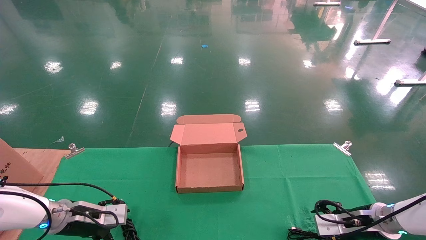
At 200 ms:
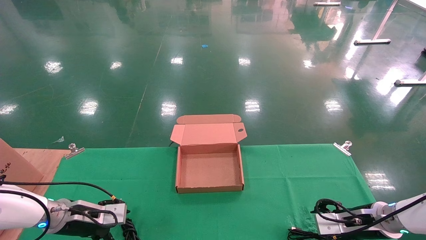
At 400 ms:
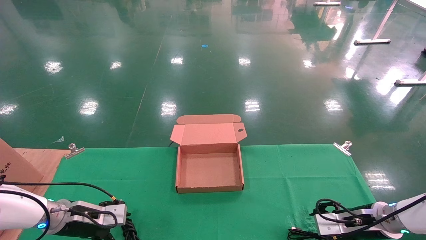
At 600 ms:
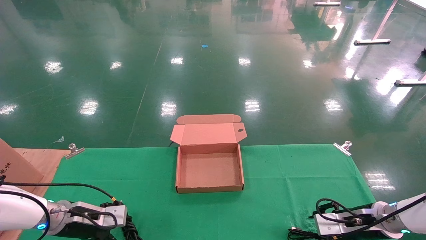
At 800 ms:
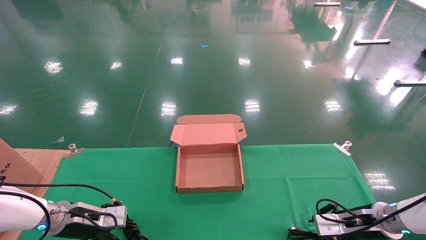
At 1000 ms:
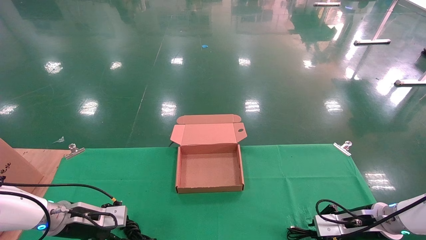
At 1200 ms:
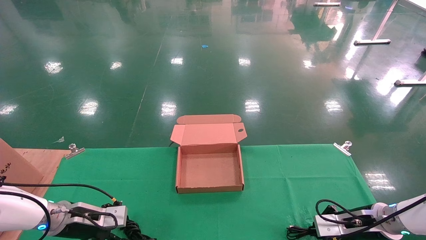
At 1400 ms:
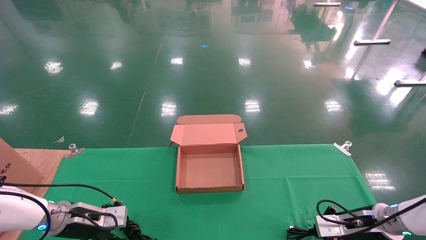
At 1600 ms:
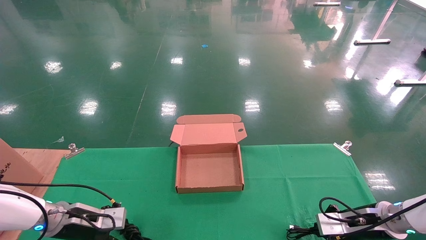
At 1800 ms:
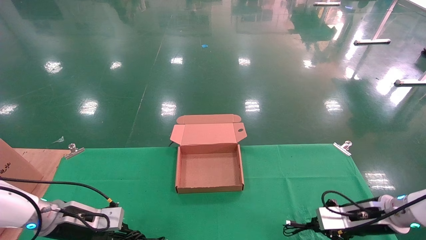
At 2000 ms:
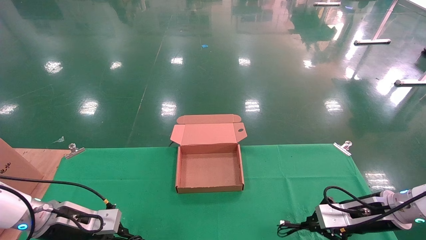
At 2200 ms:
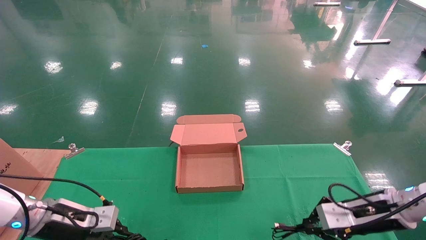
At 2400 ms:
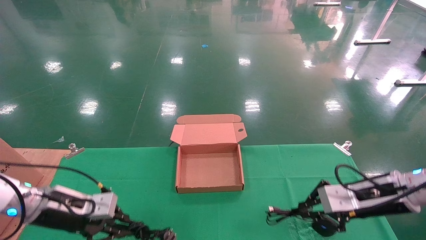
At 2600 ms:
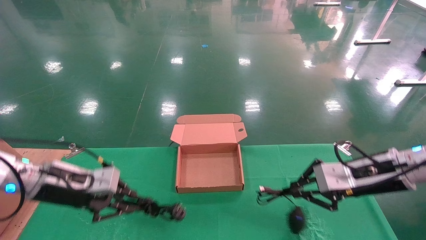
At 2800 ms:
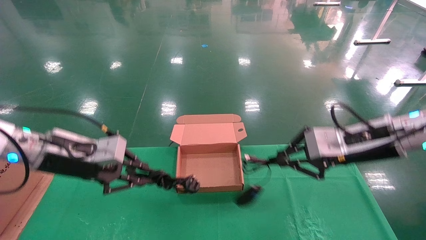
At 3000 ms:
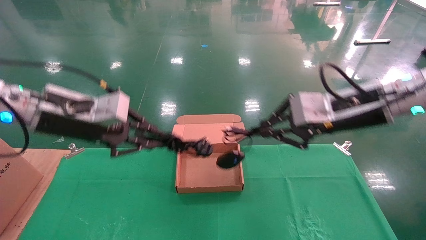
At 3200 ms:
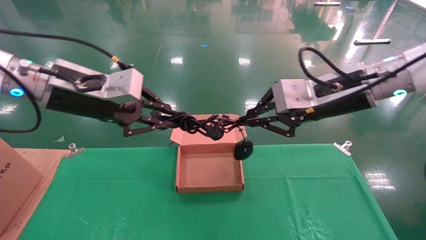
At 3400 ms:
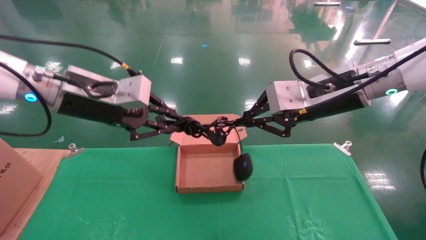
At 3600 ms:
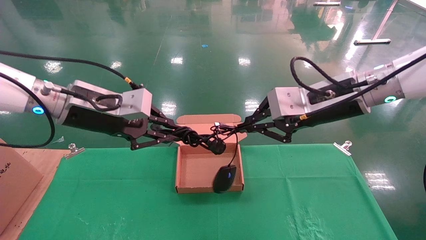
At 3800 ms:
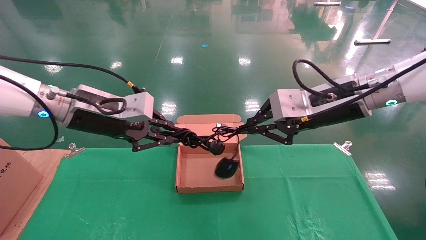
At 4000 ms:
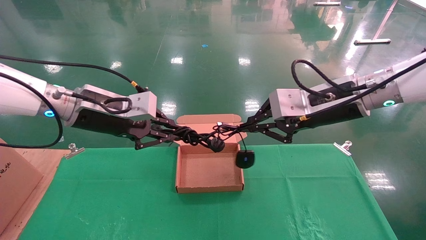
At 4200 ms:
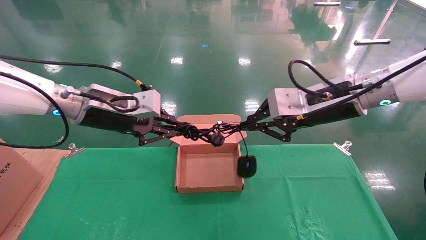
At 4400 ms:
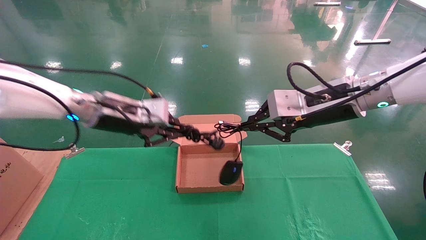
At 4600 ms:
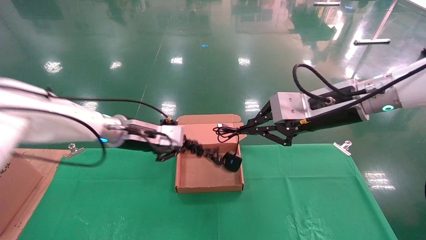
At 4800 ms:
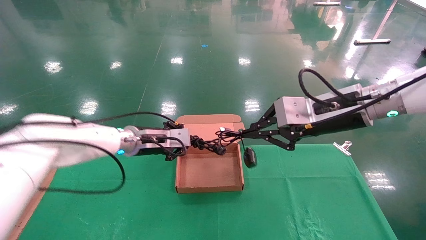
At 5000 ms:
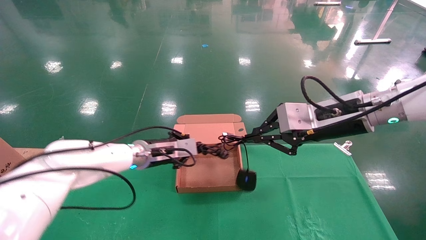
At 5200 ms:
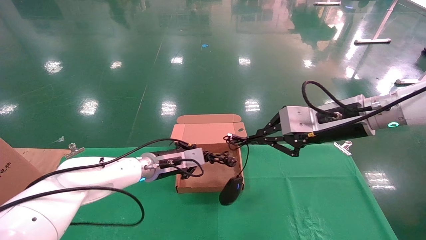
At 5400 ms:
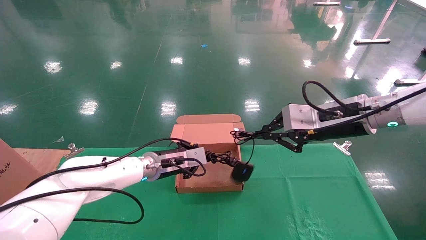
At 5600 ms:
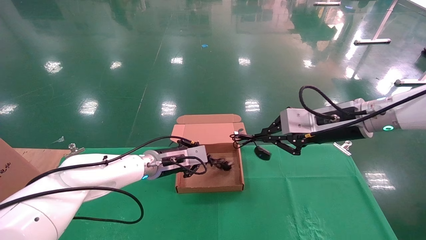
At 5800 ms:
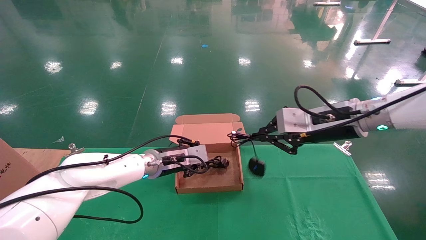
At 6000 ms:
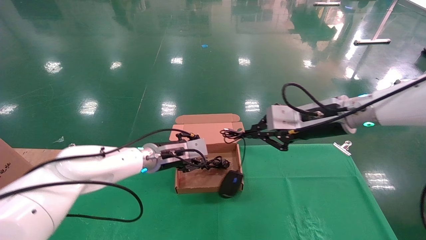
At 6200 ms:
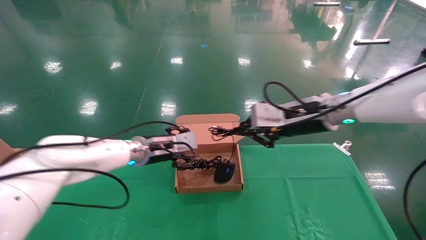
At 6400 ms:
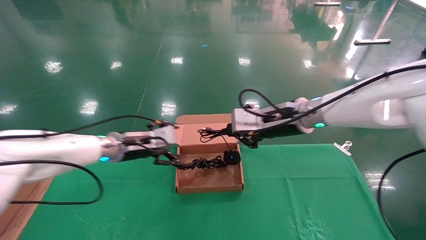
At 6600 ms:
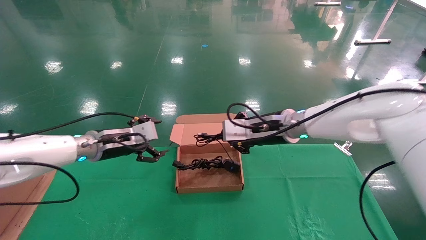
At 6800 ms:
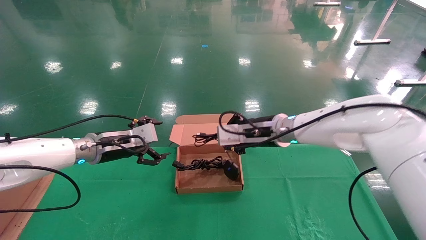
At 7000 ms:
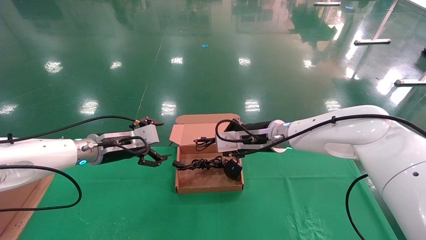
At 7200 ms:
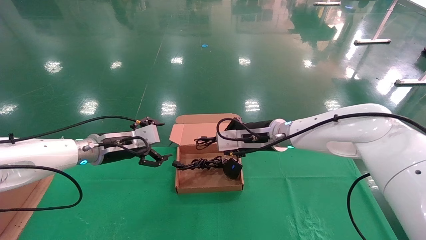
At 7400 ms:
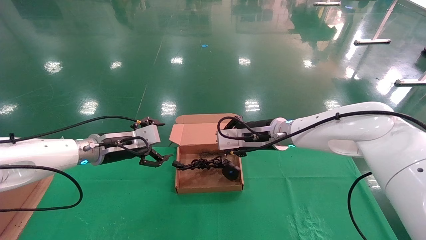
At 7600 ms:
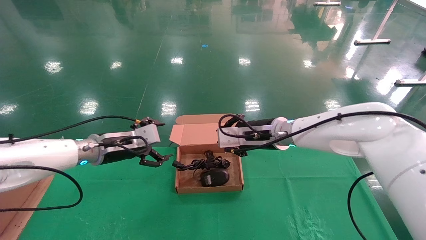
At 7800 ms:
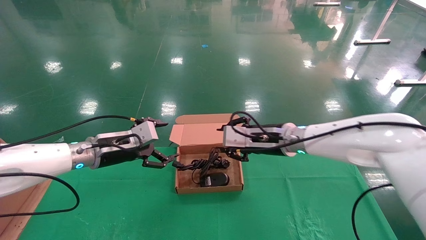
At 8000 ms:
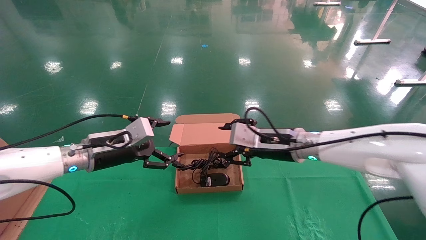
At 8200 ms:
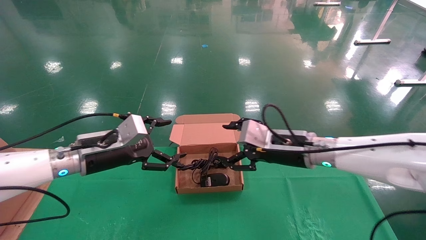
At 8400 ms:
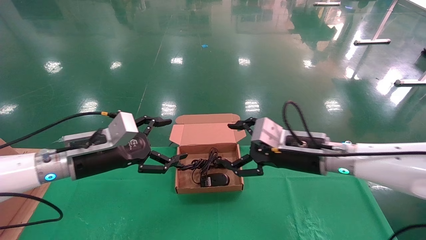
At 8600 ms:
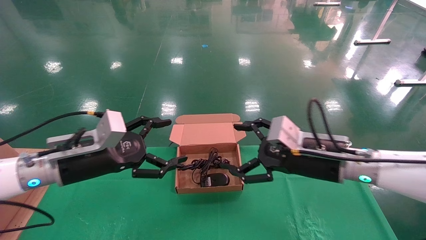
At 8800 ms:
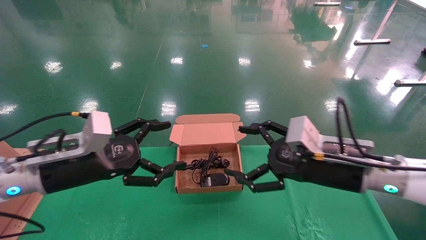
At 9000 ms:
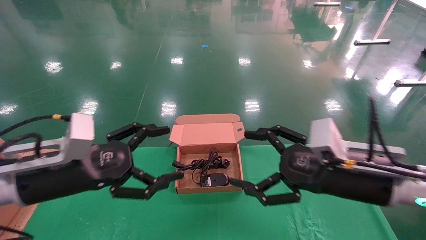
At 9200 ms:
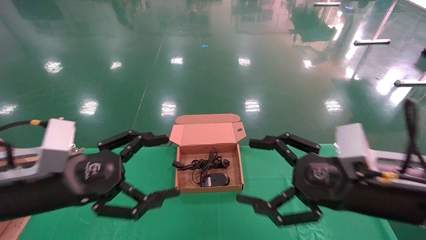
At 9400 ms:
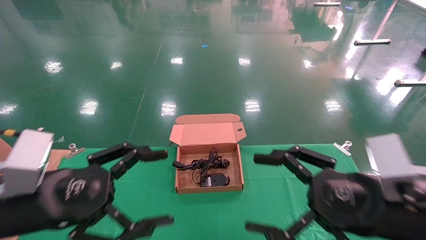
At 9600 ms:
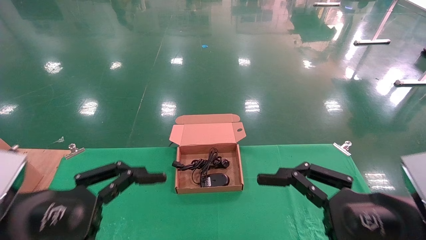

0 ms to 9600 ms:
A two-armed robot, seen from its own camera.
Step, 0 ms to 2800 ms: Grab and lift both the mouse and power cord from the accessory packaging area at the same time.
Step, 3000 ms to 7800 ms: Place the mouse and power cord into the box.
0 ms to 1600 ms: The left gripper closes up; the right gripper closes its fingers.
1600 ms to 3200 ms: The left gripper goes approximately 25 cm upward, while the right gripper goes roughly 30 cm upward and to the left.
3200 ms to 4800 ms: The left gripper shifts some 20 cm forward, downward and to the right.
4800 ms to 6400 ms: The left gripper opens its fingers, while the right gripper is displaced forward and to the left by approximately 10 cm.
6400 ms to 8000 ms: The right gripper is displaced downward by roughly 5 cm, and opens; the left gripper travels backward by approximately 5 cm.
8000 ms to 9600 ms: The right gripper shifts approximately 25 cm backward and to the right, and opens. The left gripper heads backward, covering some 20 cm.
